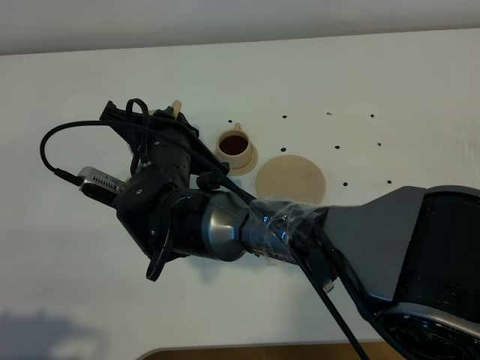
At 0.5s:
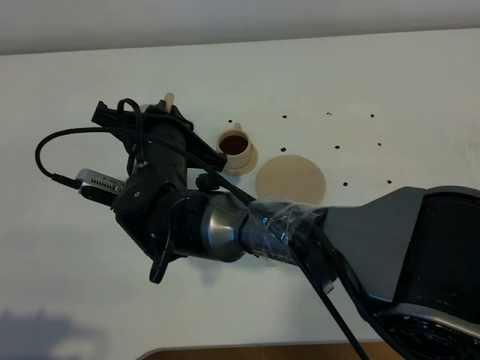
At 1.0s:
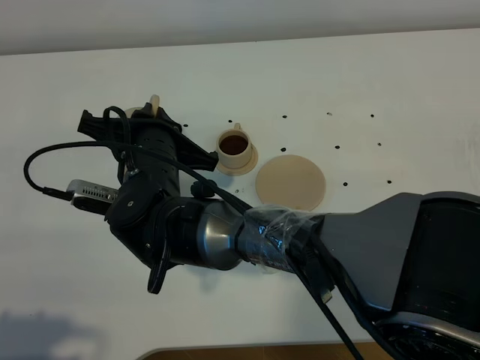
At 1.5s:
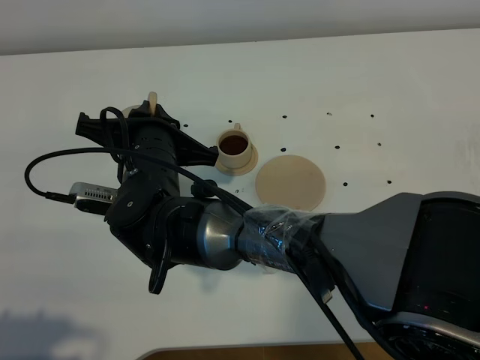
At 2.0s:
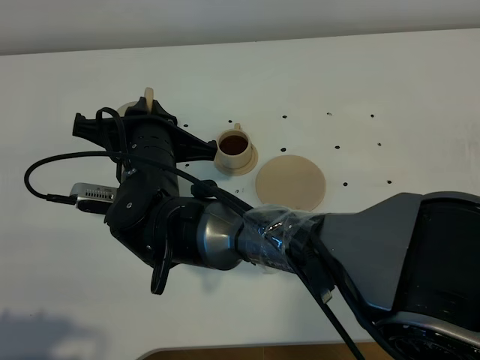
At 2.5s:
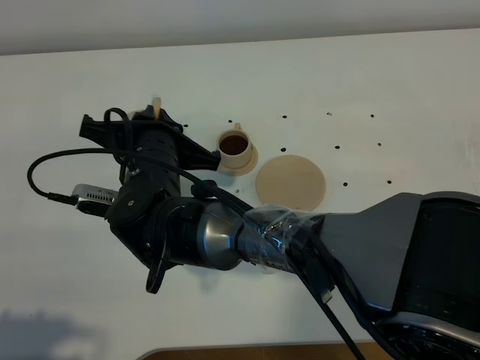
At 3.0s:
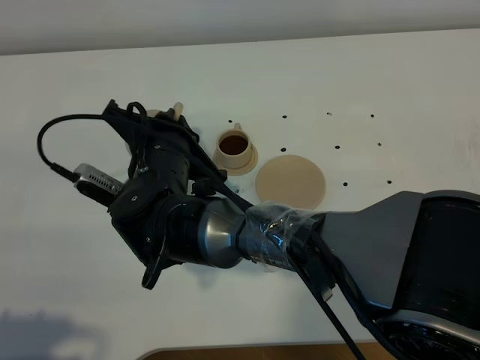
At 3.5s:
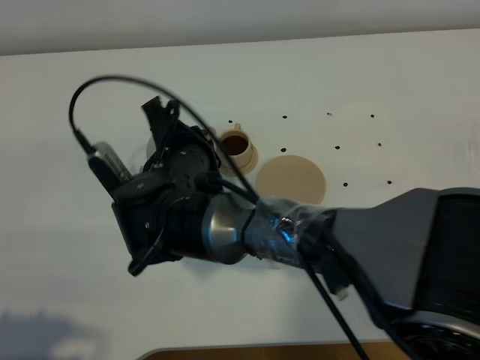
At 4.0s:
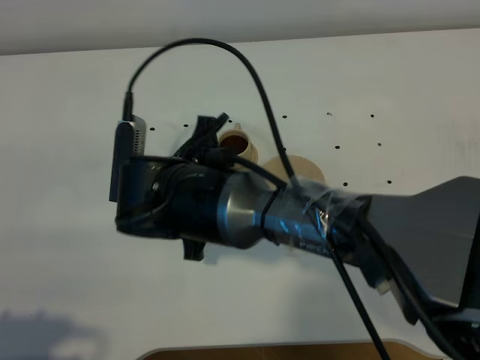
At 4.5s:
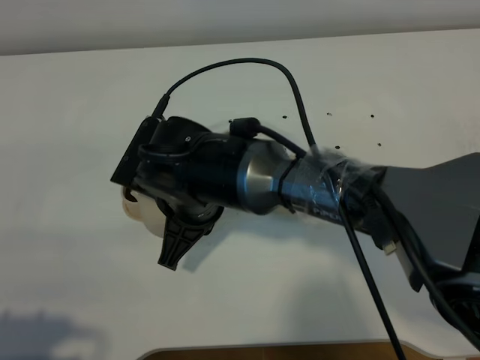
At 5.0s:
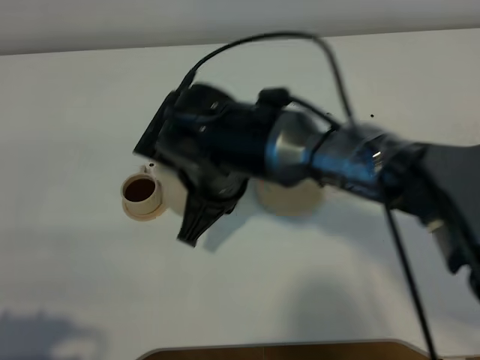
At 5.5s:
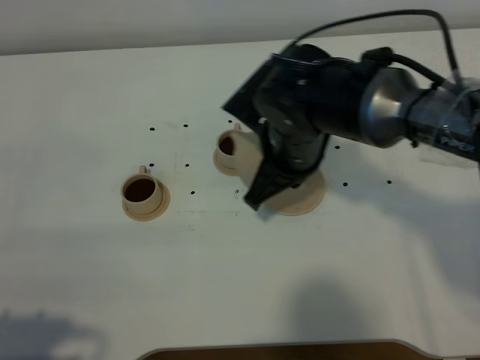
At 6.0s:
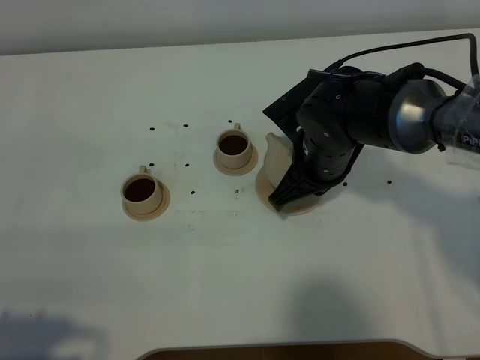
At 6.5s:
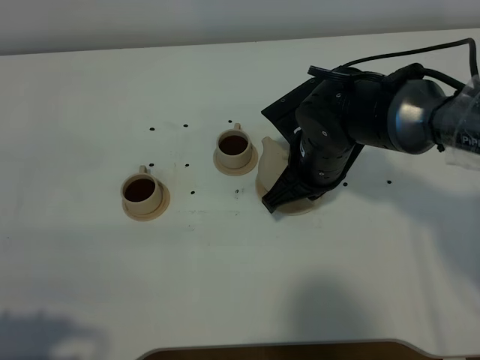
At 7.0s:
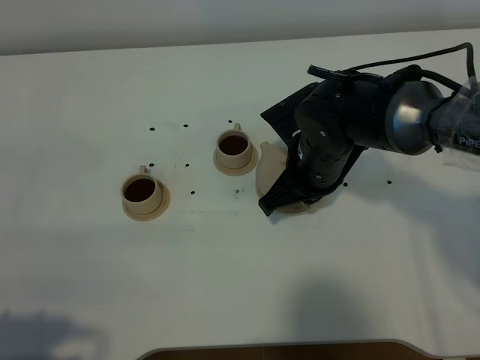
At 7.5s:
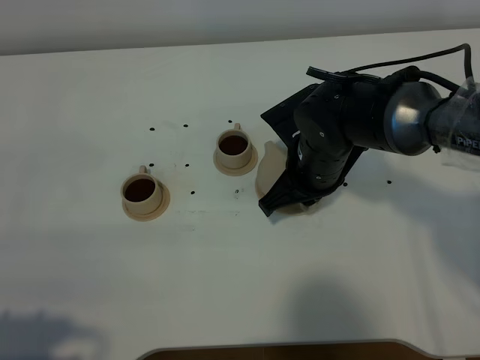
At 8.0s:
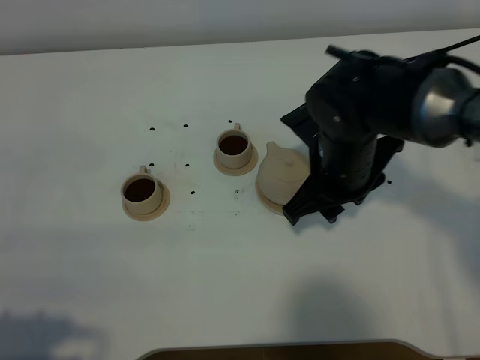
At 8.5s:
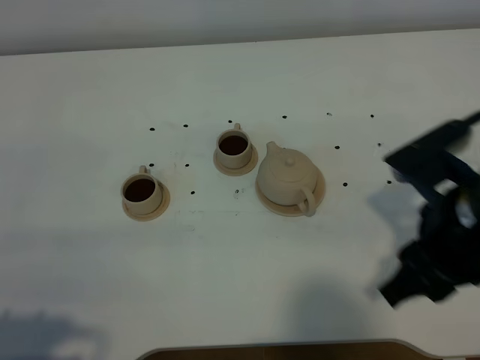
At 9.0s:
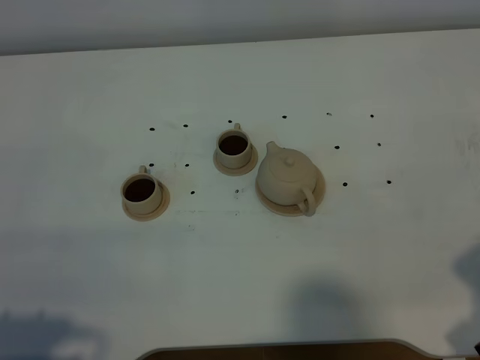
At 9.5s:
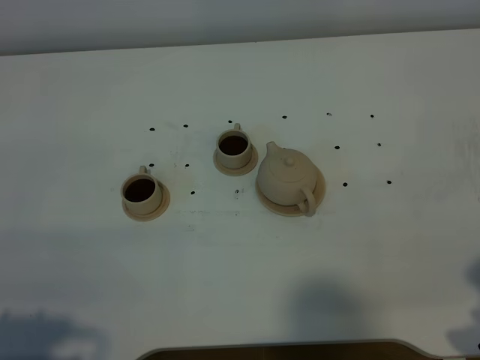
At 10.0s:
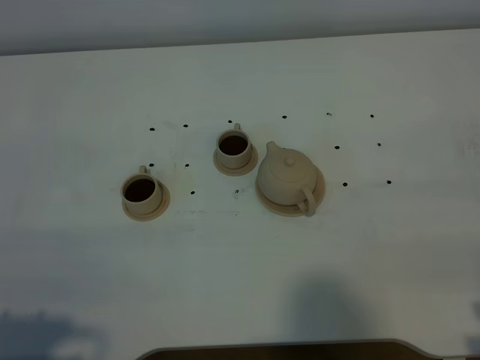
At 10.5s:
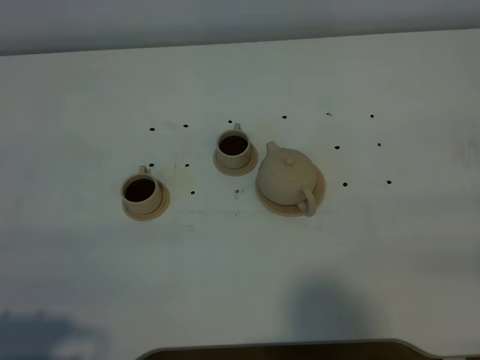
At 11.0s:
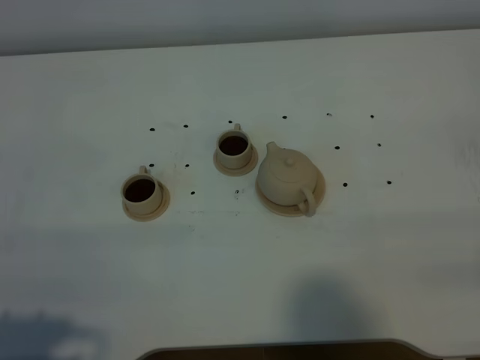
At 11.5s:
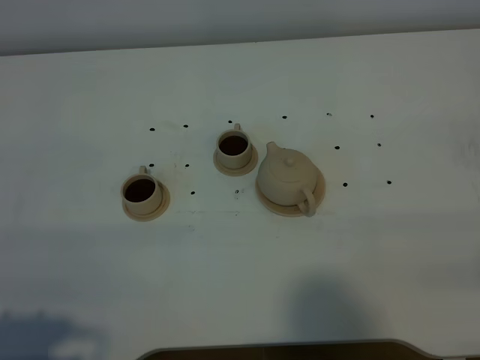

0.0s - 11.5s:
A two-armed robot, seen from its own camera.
Task of the whole recording: grasp the brown teapot and pour the tea into the two brown teacups one by one, put the brown teapot back in its original place.
Step, 0.0s - 3.5s: Pour tea into the teacup with the right gripper.
0.0s - 2.0s: There are only small adjustments of the grippers.
2.0s - 4.0s: The right gripper shifts by roughly 5 cm.
4.0s - 6.0s: The right gripper heads to the right, covering approximately 15 cm.
6.0s - 7.5s: The grippers stay close to where they were, moving slightly.
7.5s - 9.5s: The right gripper heads backward and to the right, covering about 30 cm, and opens its fingers.
